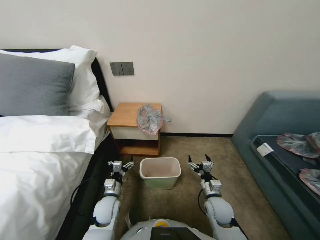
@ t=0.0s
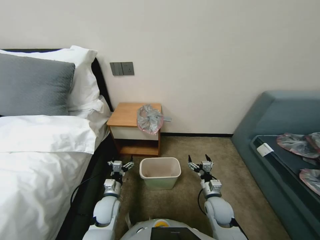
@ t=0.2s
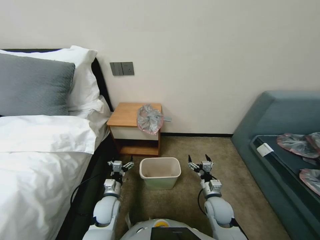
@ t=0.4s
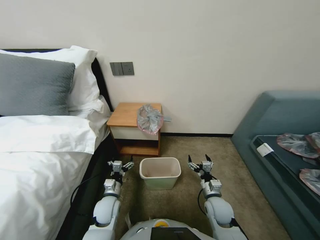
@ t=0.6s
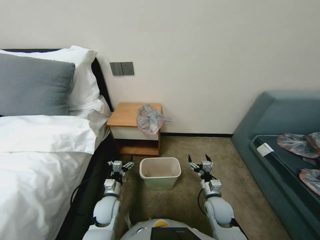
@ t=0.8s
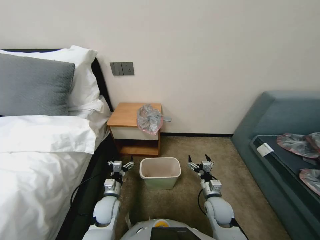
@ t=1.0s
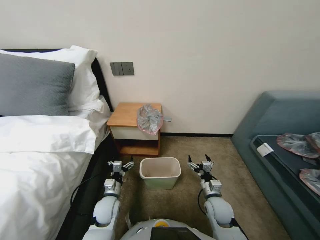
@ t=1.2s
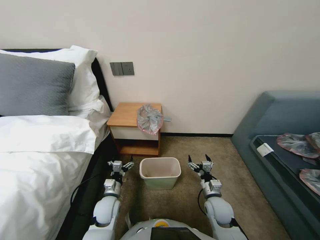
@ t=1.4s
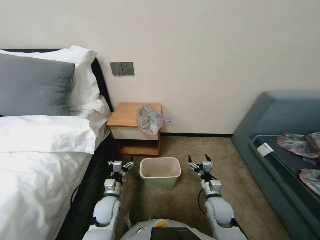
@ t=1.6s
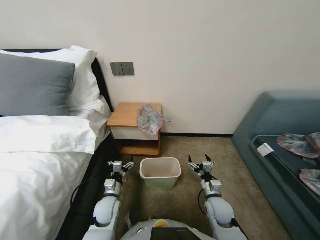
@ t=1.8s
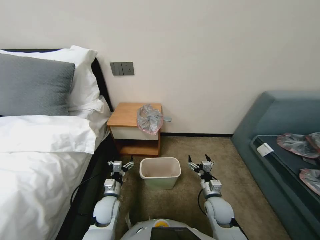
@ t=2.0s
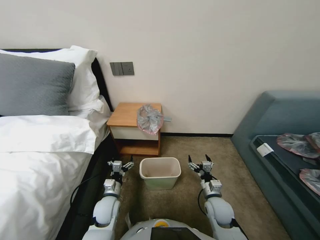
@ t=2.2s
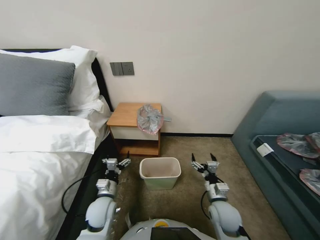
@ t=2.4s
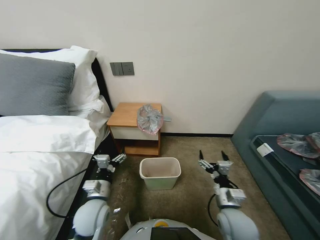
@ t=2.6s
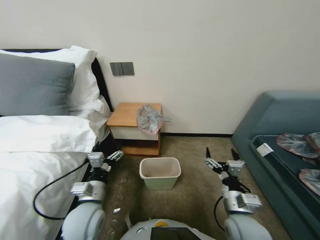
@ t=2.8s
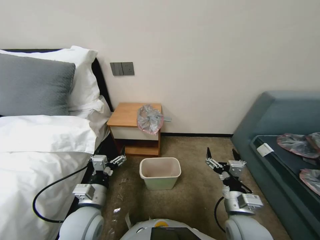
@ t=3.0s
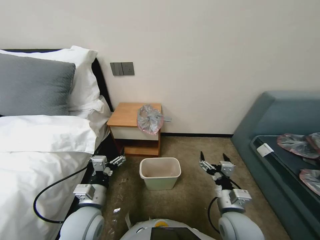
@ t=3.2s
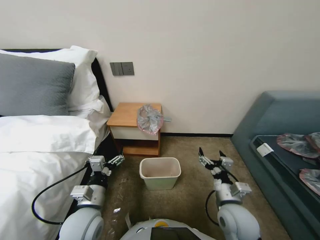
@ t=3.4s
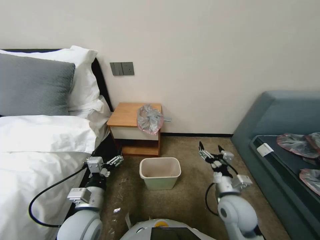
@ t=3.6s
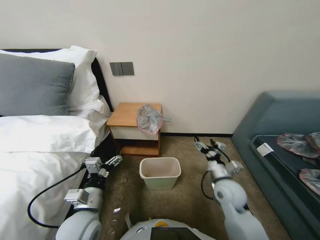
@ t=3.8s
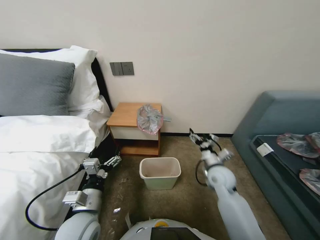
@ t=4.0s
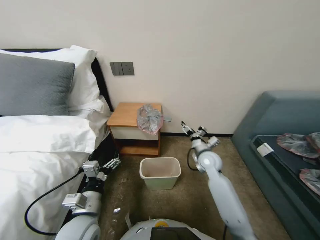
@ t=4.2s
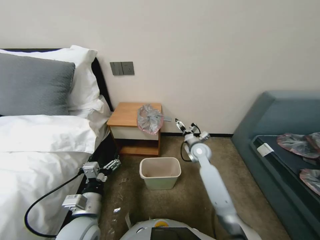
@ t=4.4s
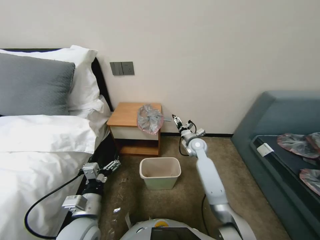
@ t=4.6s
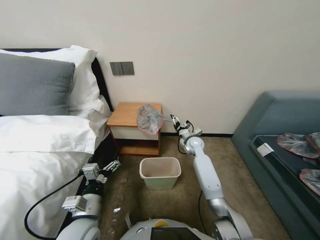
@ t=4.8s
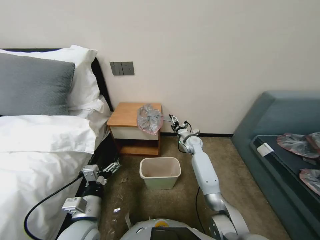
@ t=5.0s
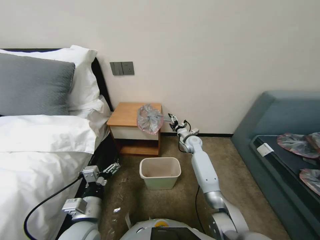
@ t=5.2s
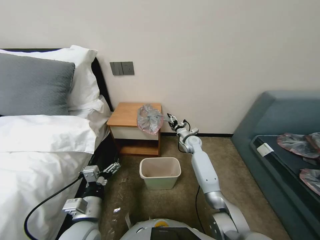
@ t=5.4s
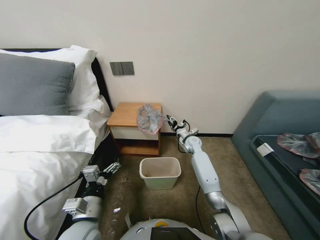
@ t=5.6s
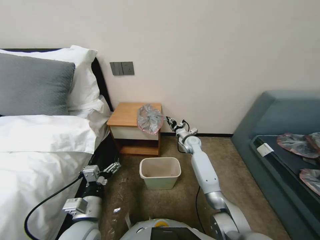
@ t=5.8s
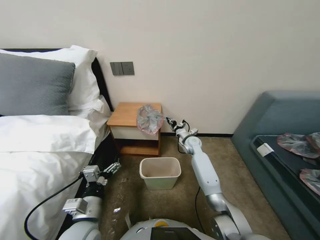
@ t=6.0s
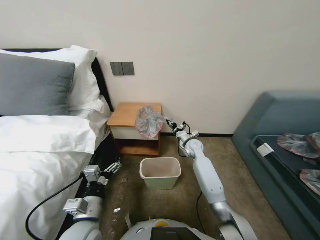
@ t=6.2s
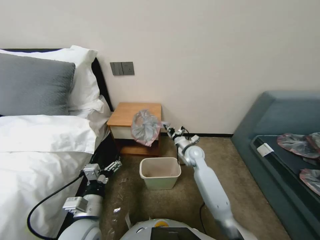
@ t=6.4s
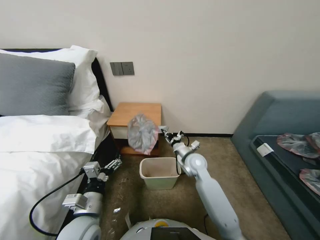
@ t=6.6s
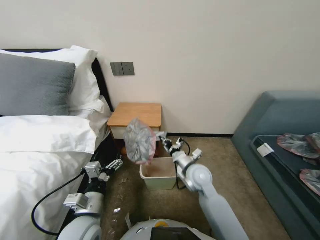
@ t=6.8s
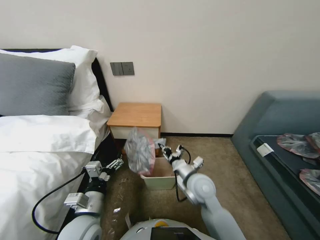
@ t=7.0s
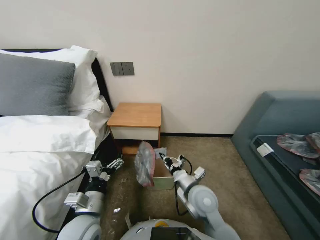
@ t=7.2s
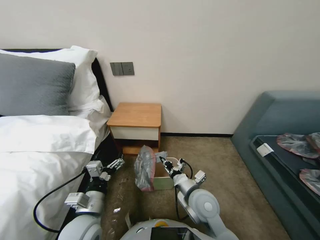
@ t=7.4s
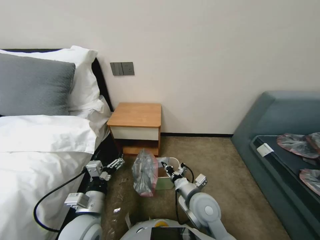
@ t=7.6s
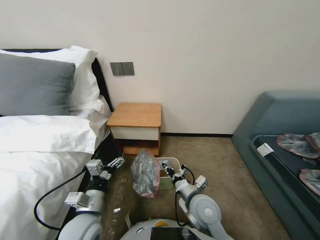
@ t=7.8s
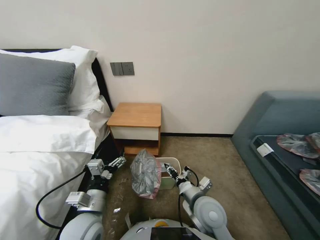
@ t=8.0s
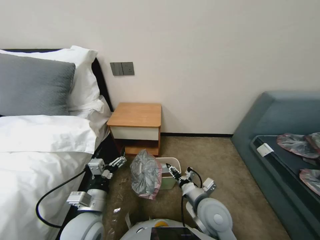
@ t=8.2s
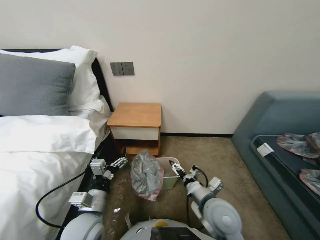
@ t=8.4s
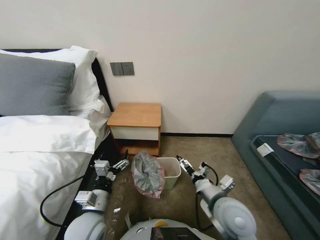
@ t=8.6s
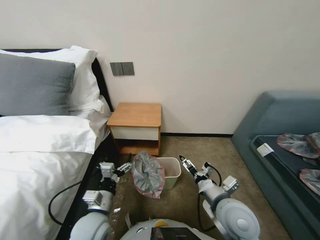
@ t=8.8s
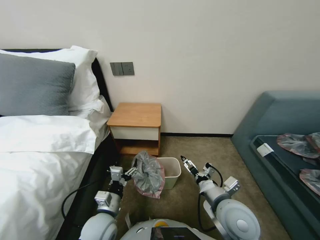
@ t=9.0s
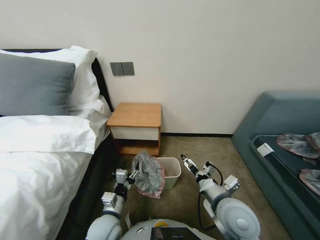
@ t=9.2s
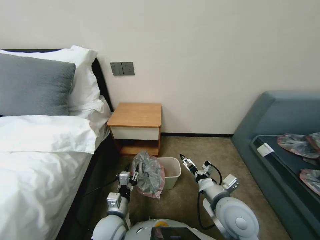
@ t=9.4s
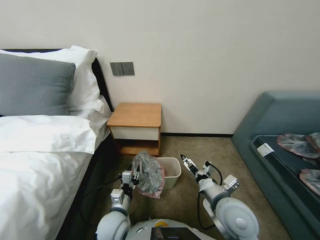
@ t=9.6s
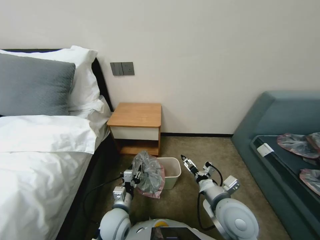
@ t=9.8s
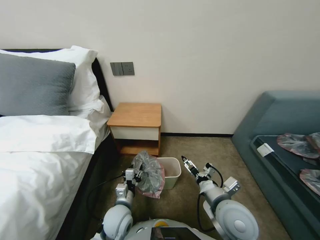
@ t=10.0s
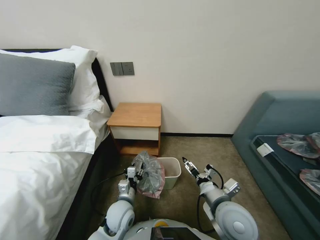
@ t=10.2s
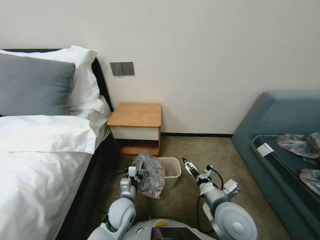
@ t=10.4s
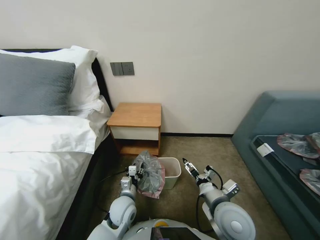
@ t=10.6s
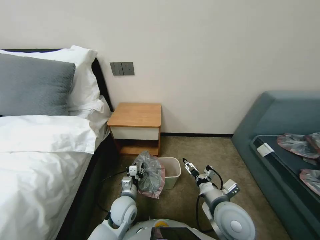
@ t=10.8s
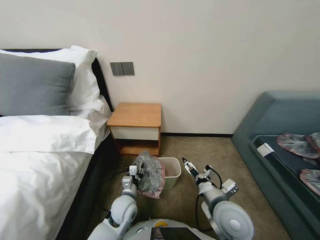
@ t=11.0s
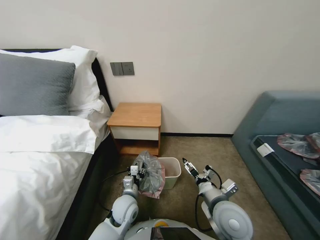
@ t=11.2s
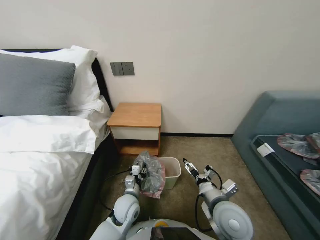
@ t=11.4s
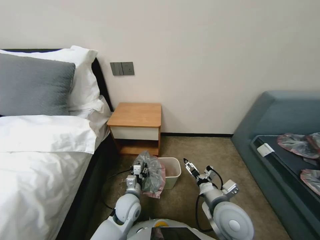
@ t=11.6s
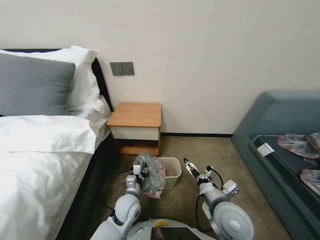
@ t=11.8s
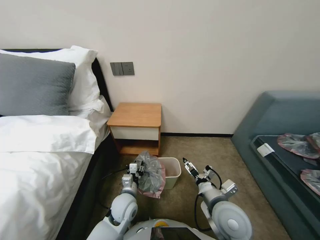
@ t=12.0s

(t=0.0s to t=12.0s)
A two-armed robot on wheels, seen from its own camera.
Task of the whole recording: Pick up the garbage bag from the table and place it over the trash can.
t=1.6s - t=3.0s: The grippers both shift upward and backward by approximately 15 cm.
t=3.0s - t=4.4s: The right gripper goes approximately 25 cm forward.
t=4.4s - t=6.0s: The right gripper goes approximately 10 cm forward, and closes its fingers.
t=6.0s - t=7.6s: The right gripper is displaced backward by about 30 cm.
t=7.6s - t=9.0s: The right gripper travels to the right by roughly 5 cm, and opens.
t=9.0s - t=10.4s: The left gripper moves downward, forward and to the right, approximately 10 cm, and closes up.
t=10.4s - t=12.0s: The grippers stay close to where they were, moving slightly.

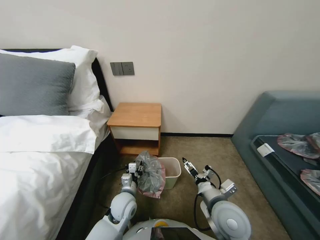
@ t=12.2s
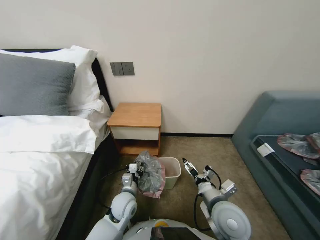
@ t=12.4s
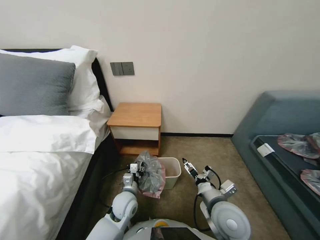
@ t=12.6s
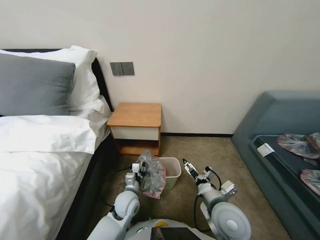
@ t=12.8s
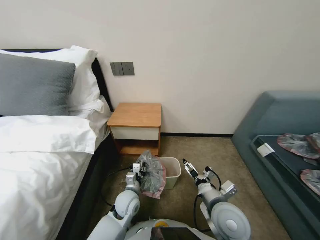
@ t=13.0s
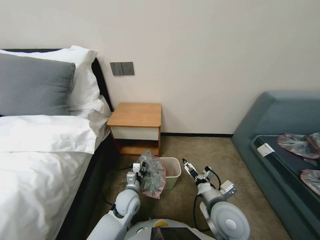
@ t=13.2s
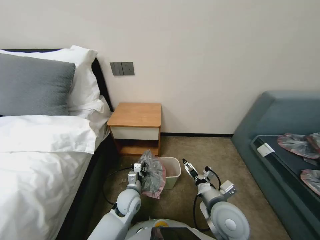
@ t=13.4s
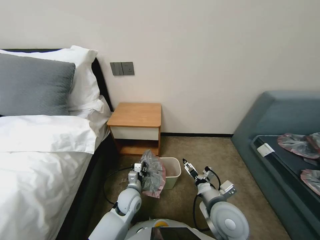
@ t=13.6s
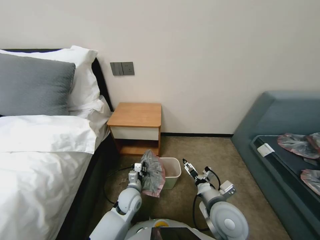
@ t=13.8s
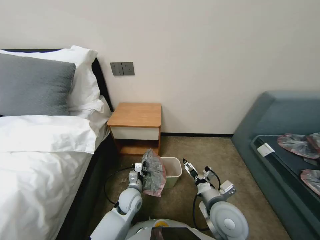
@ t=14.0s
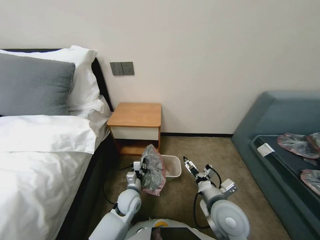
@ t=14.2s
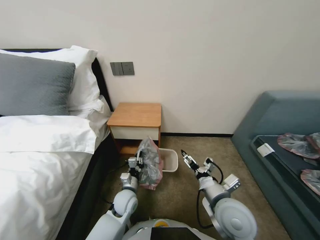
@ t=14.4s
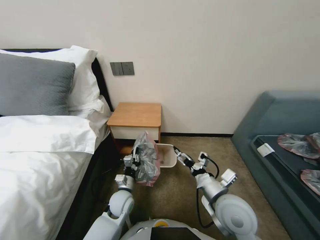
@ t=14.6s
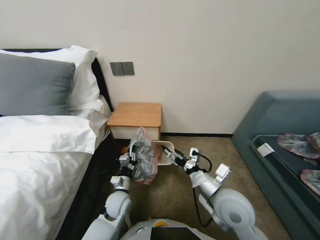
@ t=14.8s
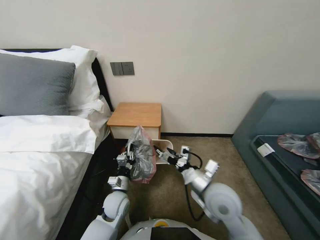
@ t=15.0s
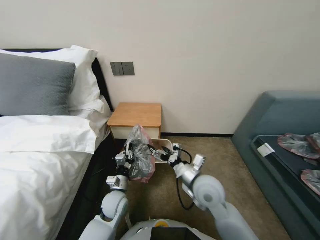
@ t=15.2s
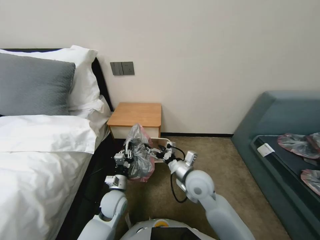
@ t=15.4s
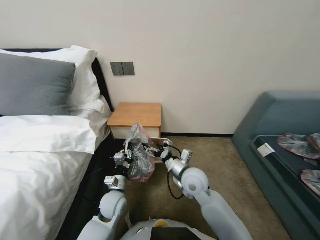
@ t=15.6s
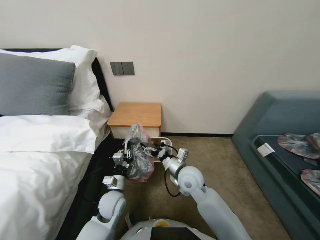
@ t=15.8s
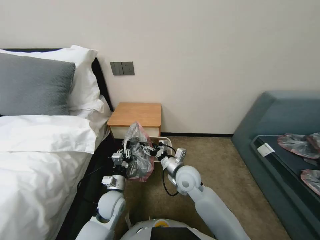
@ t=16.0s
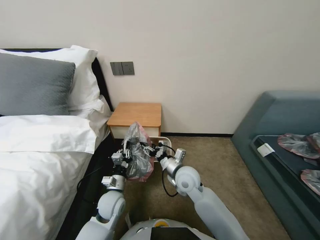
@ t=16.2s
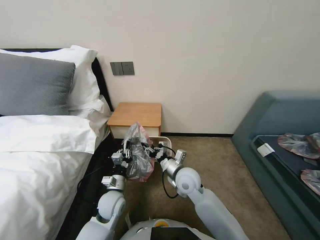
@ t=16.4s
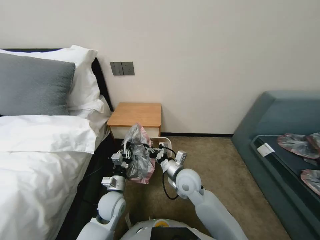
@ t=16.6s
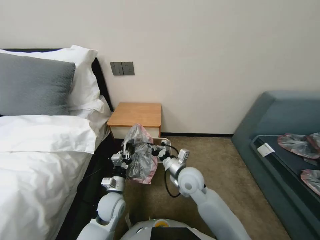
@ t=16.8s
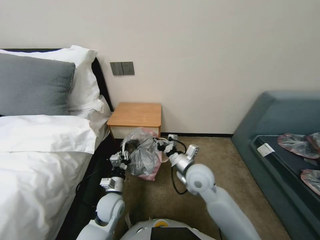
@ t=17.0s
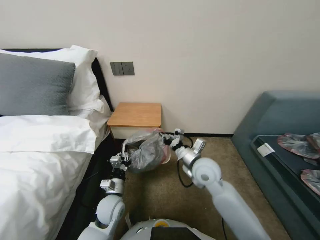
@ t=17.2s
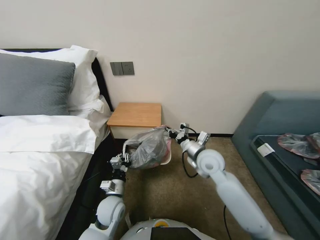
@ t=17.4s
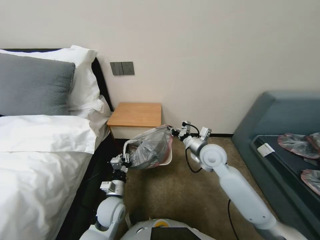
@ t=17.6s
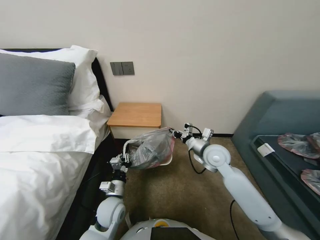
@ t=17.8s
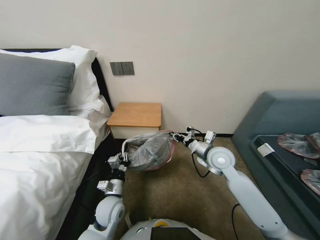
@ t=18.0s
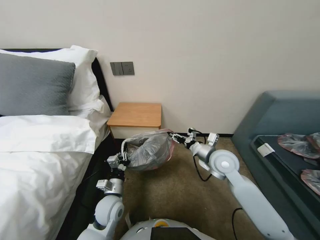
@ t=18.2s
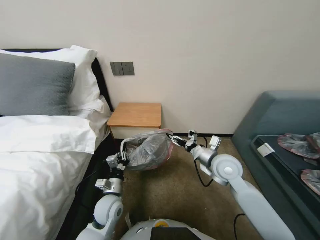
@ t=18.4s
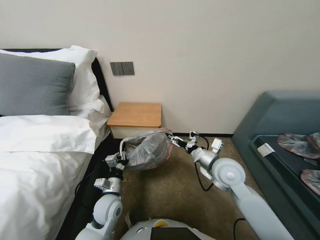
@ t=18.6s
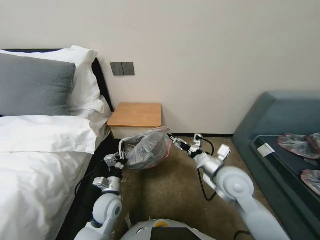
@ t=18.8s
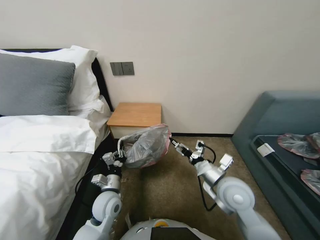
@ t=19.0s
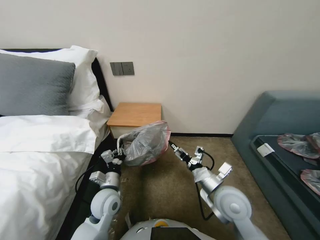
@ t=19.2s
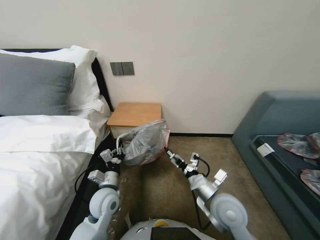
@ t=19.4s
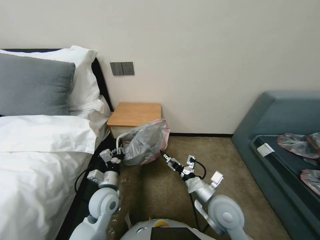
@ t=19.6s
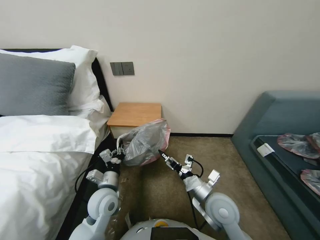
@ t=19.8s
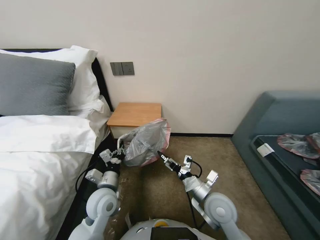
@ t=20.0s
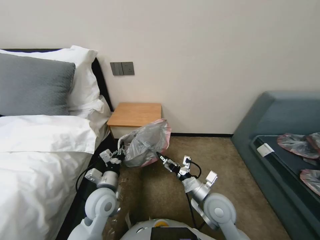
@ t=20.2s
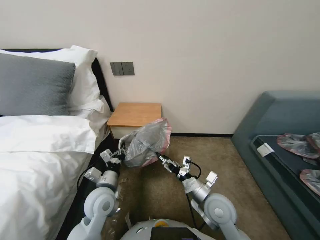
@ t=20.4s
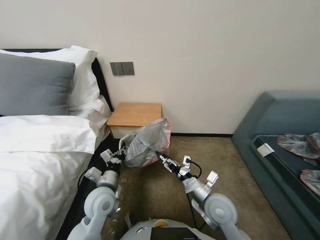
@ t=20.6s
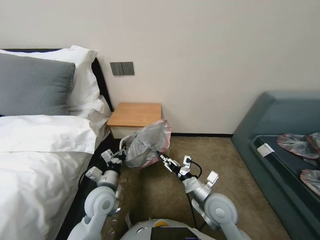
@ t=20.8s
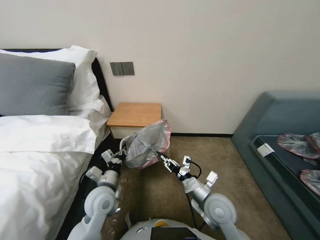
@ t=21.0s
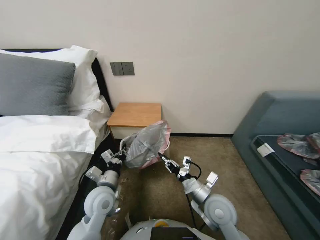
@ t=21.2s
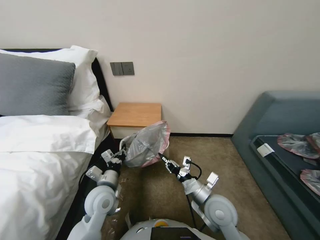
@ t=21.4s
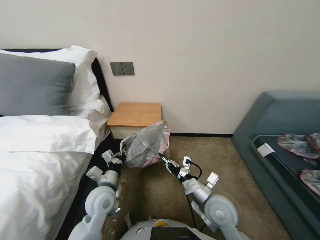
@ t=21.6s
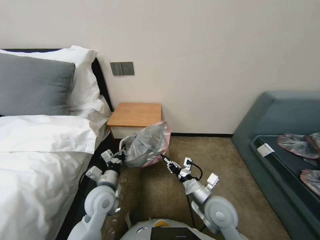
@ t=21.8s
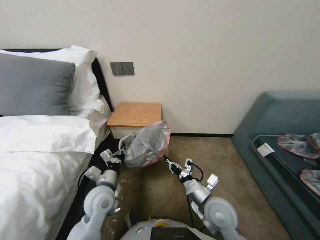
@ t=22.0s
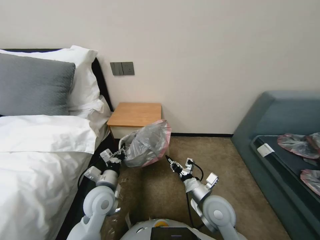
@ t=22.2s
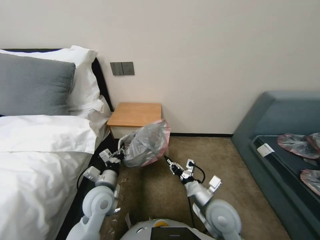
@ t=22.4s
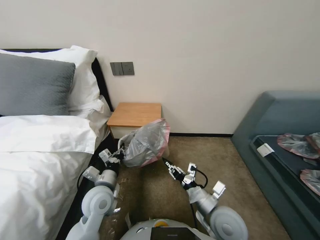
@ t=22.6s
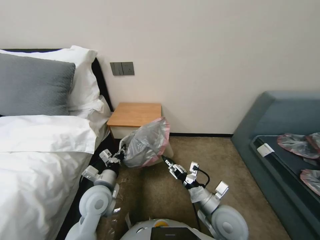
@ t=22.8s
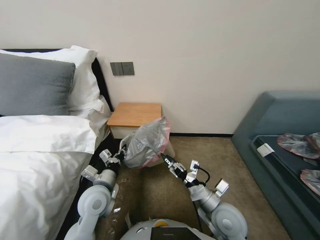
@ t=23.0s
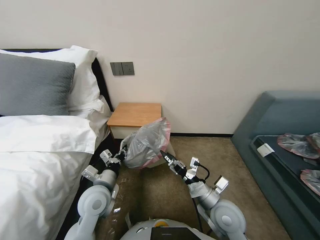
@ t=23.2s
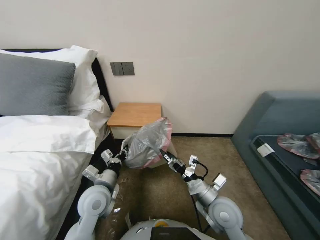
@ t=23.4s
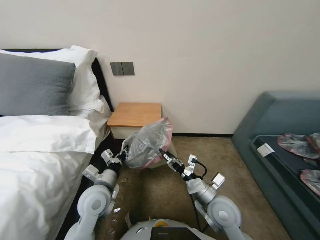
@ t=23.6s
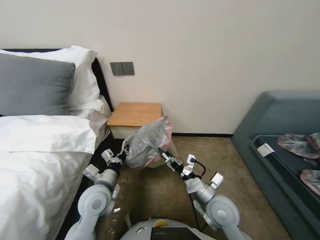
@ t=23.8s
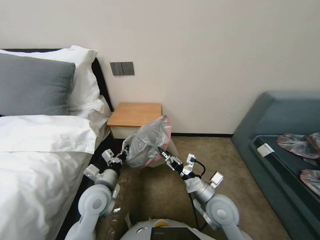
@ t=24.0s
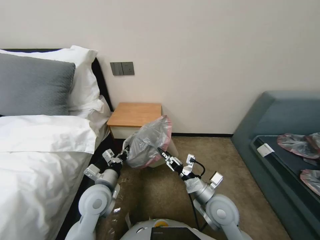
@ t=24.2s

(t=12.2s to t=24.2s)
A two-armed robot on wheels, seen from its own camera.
Task of the whole recording: Pick up the garbage bag from the table and place it over the trash can.
t=12.2s - t=13.8s: The grippers make only small movements.
t=13.8s - t=15.2s: The right gripper moves forward, about 5 cm; the left gripper travels to the left by approximately 5 cm.
t=15.2s - t=16.6s: The right gripper is displaced to the left and forward by approximately 10 cm, and closes up.
t=16.6s - t=18.2s: The right gripper heads to the right, upward and forward, covering roughly 15 cm.
t=18.2s - t=19.8s: The left gripper shifts by some 5 cm. The right gripper travels backward by roughly 15 cm, and opens up.
t=19.8s - t=21.2s: The right gripper closes up.
t=21.2s - t=22.6s: The grippers stay close to where they were, moving slightly.
t=22.6s - t=24.2s: The right gripper opens.
